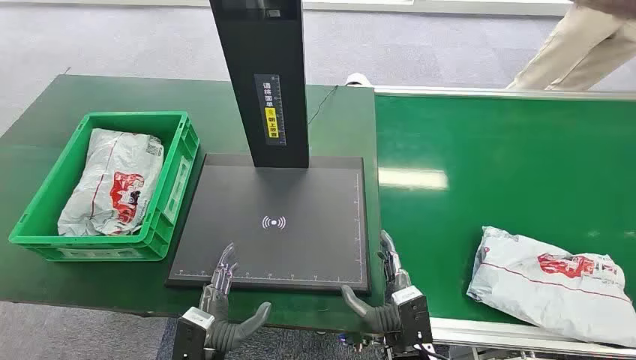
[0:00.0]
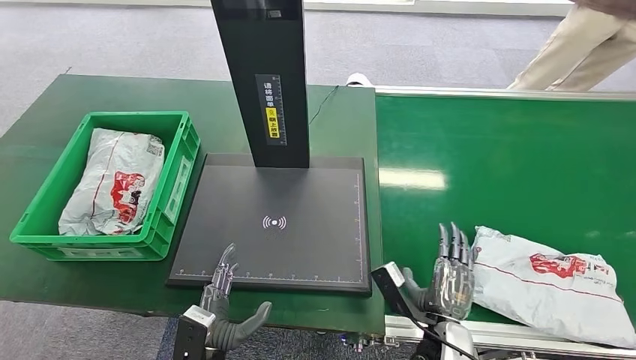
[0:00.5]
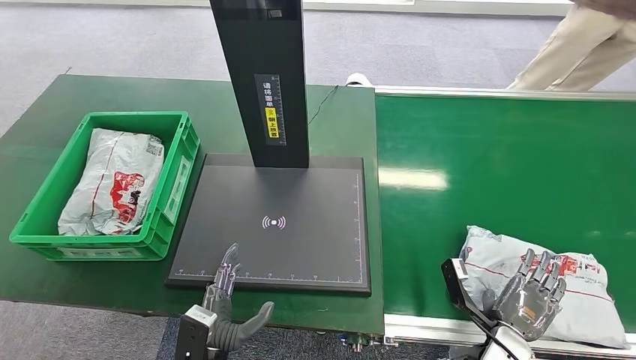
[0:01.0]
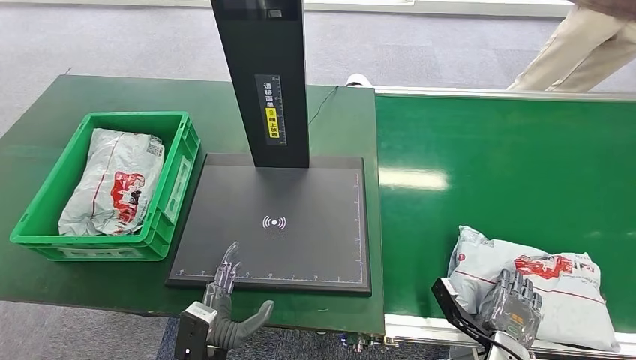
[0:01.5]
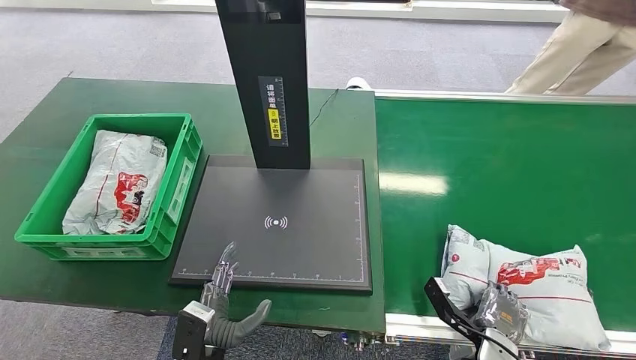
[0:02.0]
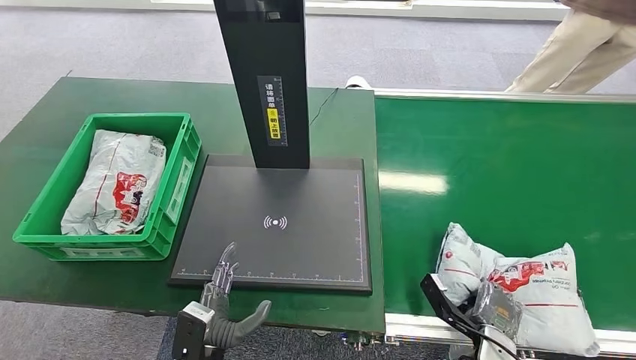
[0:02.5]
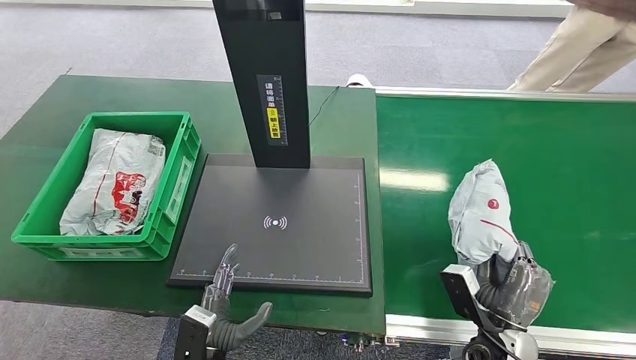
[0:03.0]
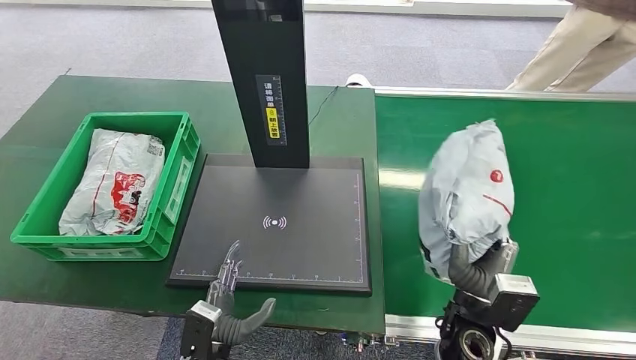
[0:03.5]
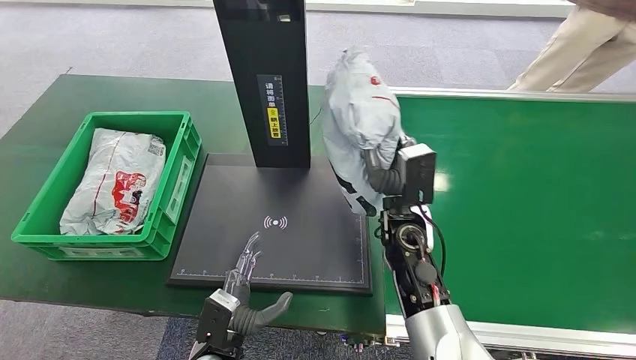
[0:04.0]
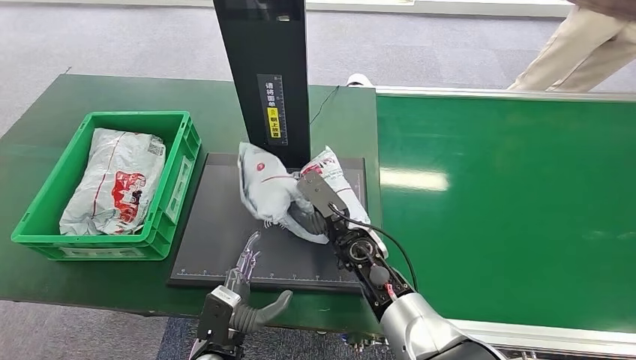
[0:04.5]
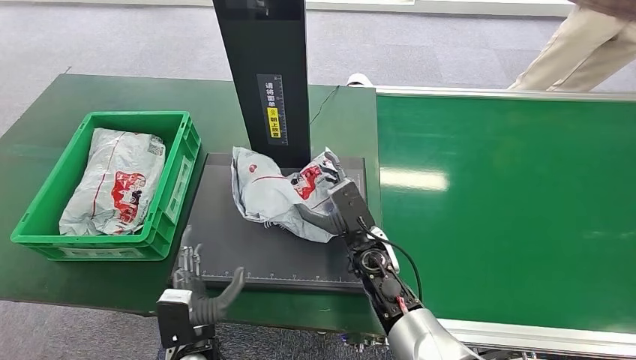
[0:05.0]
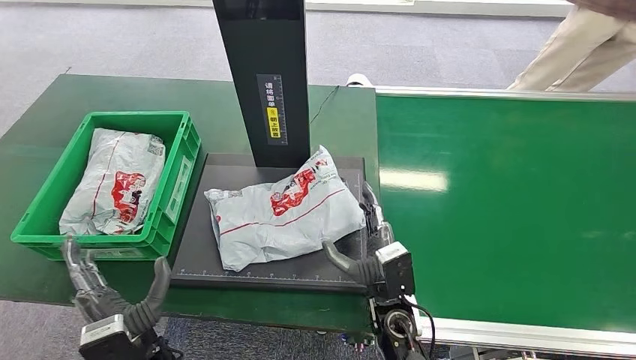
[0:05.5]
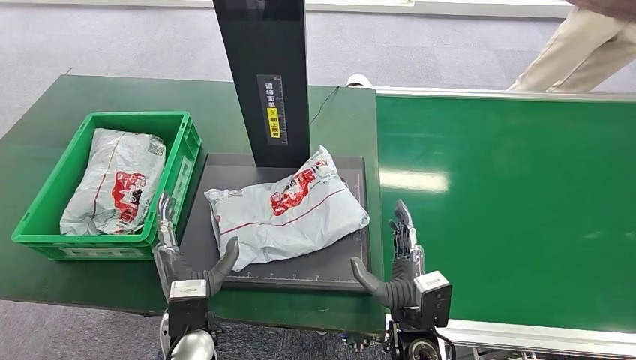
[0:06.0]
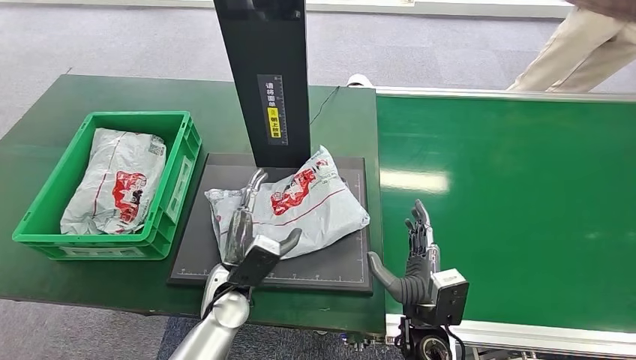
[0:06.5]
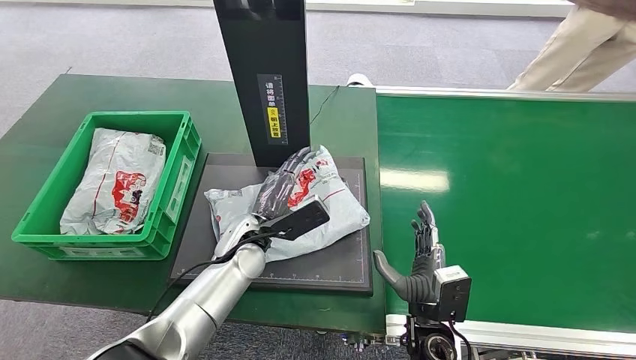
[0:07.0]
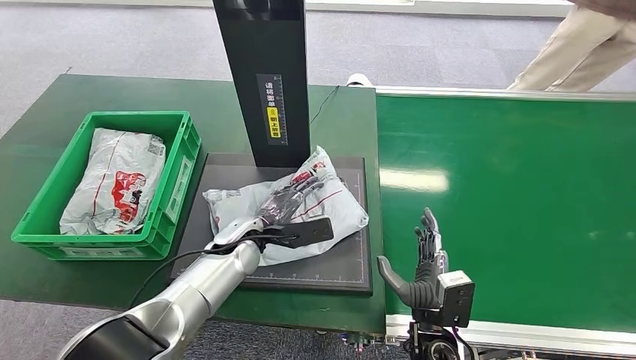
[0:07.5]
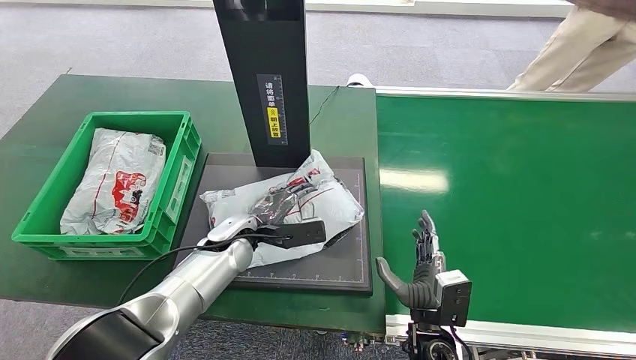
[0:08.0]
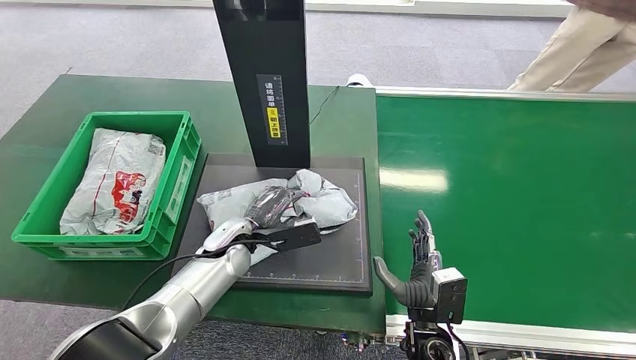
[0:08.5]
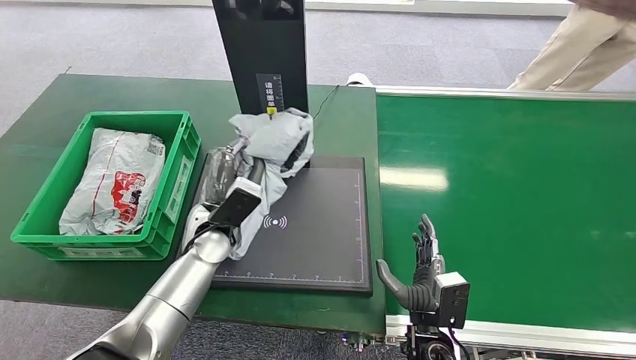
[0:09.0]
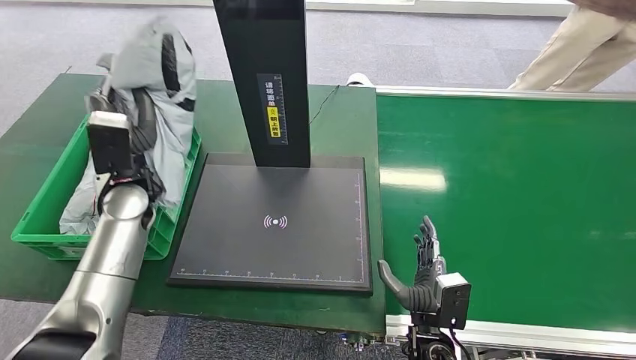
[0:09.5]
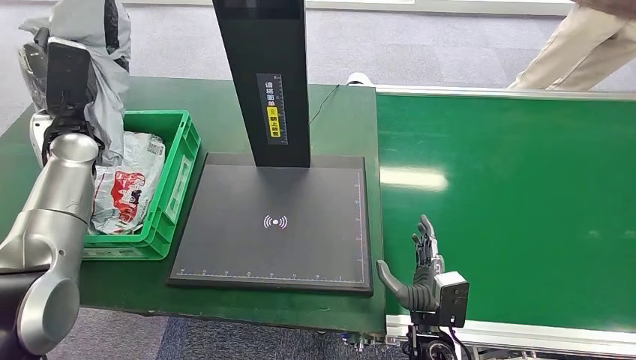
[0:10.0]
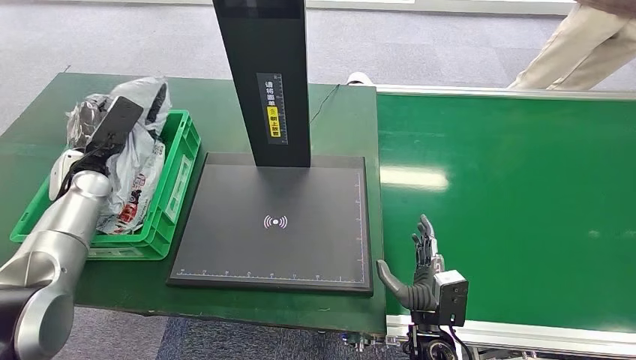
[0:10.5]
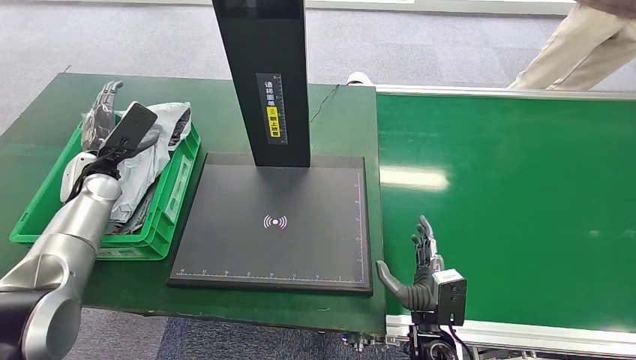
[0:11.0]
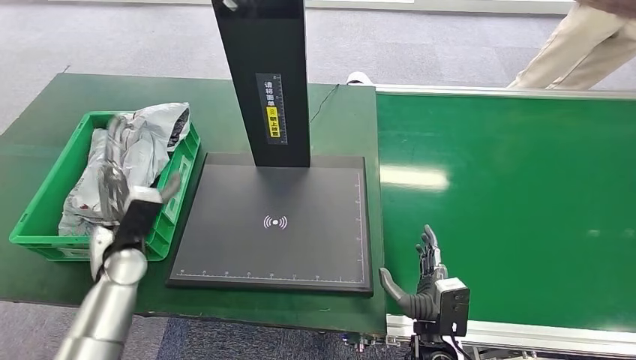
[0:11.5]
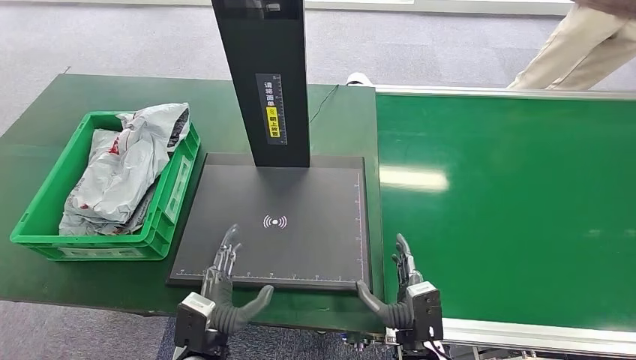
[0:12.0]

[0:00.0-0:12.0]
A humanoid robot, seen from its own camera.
Task of the whole recording: Weigh the package on the weighing device and place it in the left basket.
Step, 0:00.0 to 0:03.0: Pick up the package from the conveyor belt.
Step, 0:03.5 to 0:05.5: Place the package onto the inbound machine.
Step, 0:06.0 to 0:09.0: Pick up the package from the inbound machine.
Step, 0:09.5 to 0:12.0: Place the package into the parcel locker.
0:04.0 to 0:06.0: The left hand moves upward, approximately 5 cm. The right hand goes roughly 20 cm backward and downward.
0:06.0 to 0:08.0: The left hand travels forward by approximately 15 cm.
0:10.0 to 0:12.0: The left hand is displaced backward, downward and to the right by roughly 40 cm.

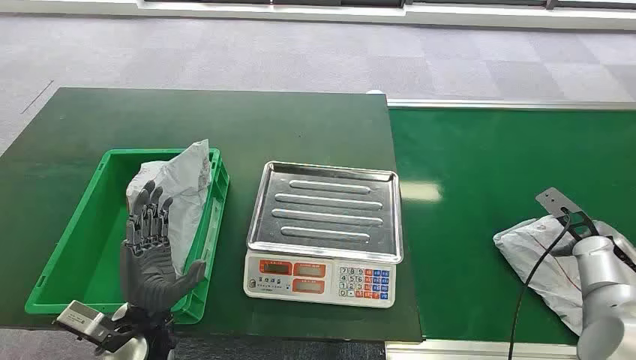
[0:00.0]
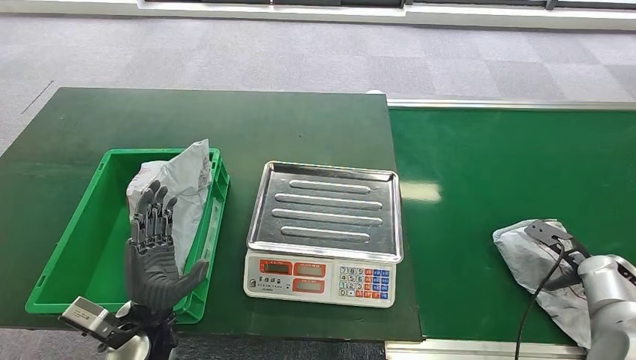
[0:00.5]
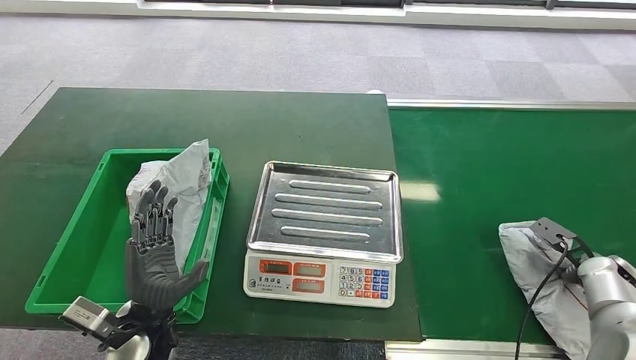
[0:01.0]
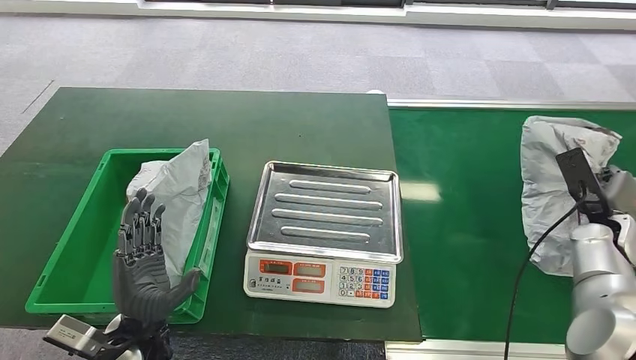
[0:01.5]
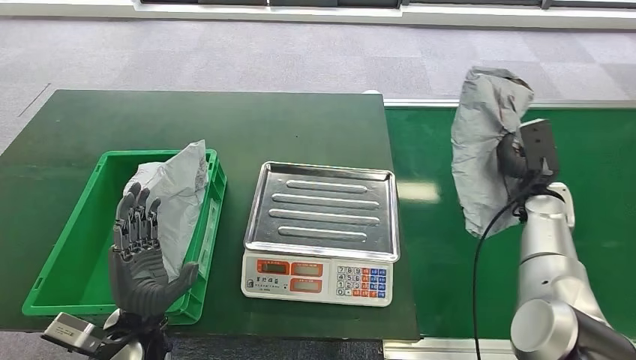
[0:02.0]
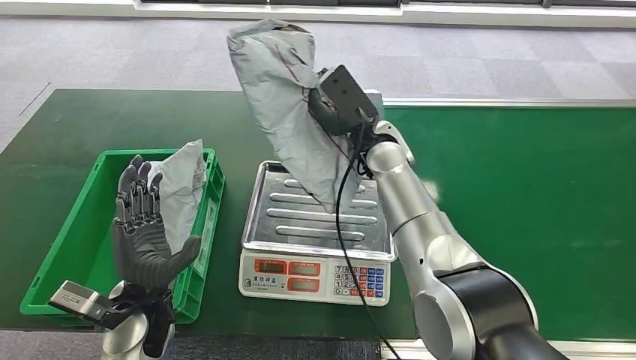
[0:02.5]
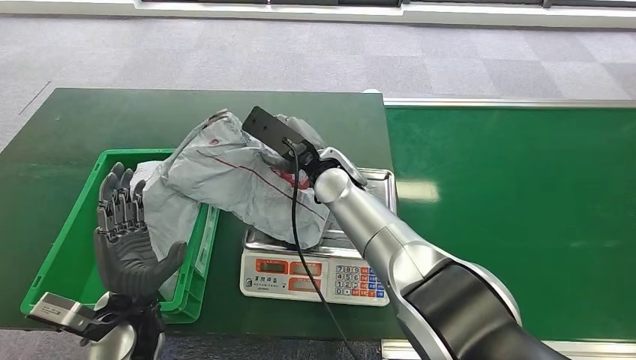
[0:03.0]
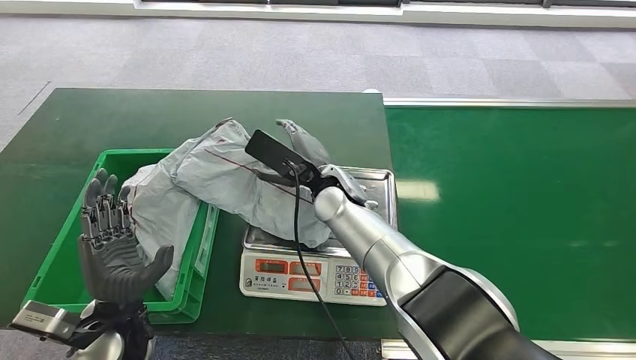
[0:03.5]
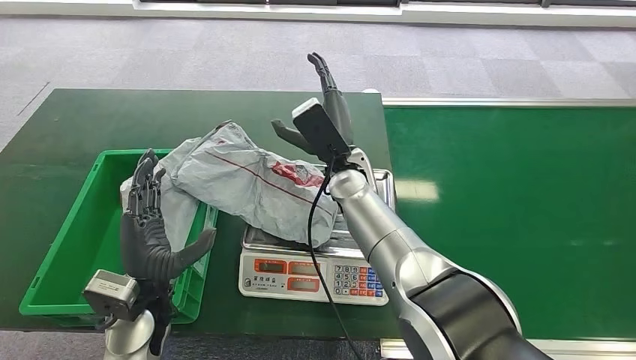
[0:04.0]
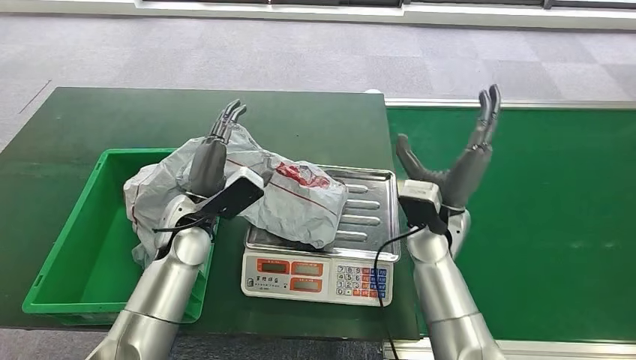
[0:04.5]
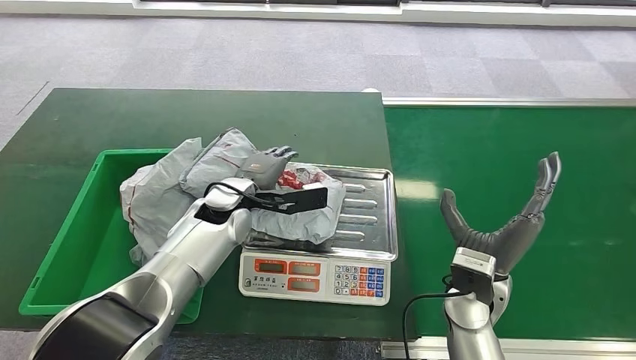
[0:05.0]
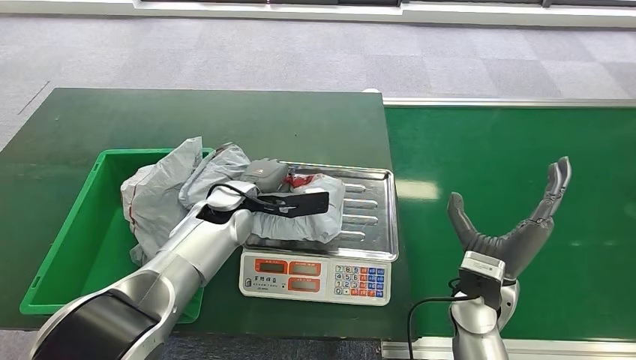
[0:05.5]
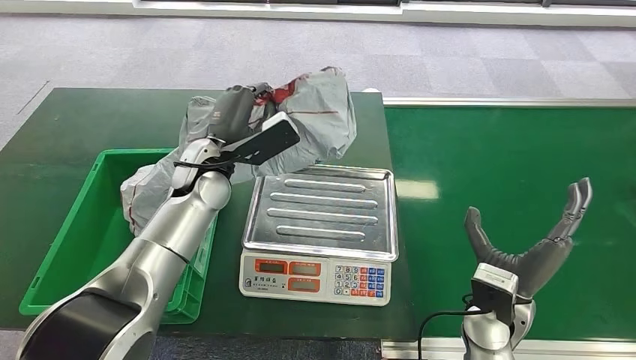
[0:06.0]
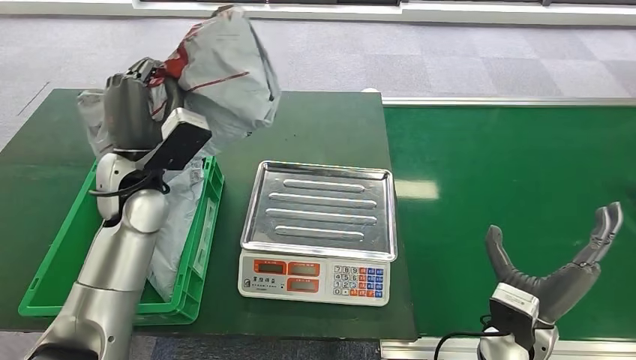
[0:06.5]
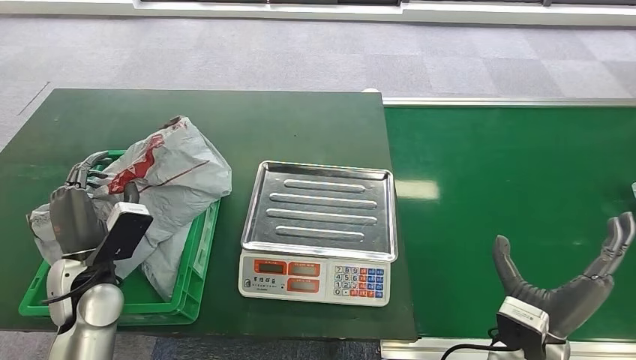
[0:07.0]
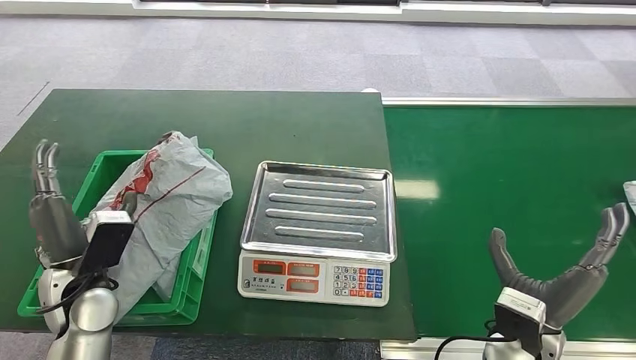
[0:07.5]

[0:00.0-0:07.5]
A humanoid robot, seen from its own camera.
Task of the whole recording: Weigh the package on the weighing device and place it in the left basket.
Step, 0:00.0 to 0:02.0: Pick up the package from the conveyor belt.
Step, 0:02.5 to 0:04.0: Place the package onto the inbound machine.
Step, 0:04.5 to 0:06.5: Pick up the package from the inbound machine.
Step, 0:07.0 to 0:07.5: Place the package into the parcel locker.
